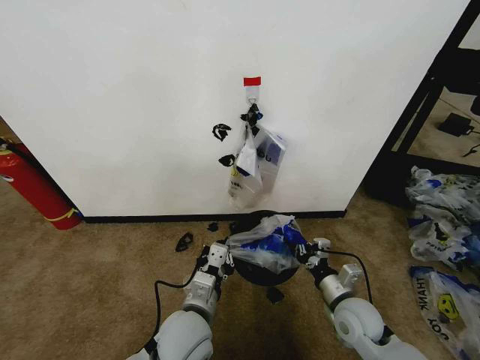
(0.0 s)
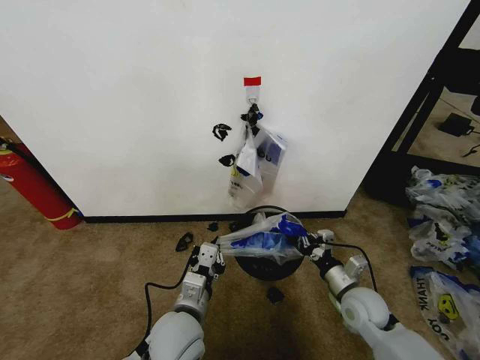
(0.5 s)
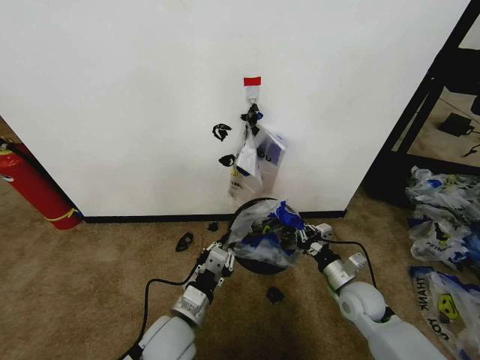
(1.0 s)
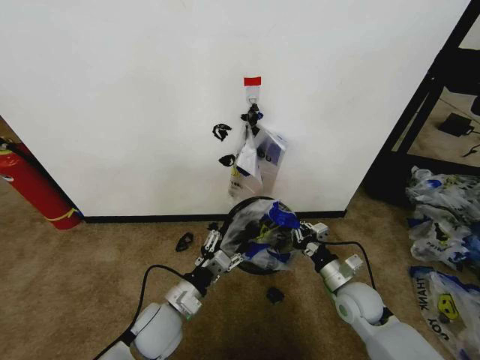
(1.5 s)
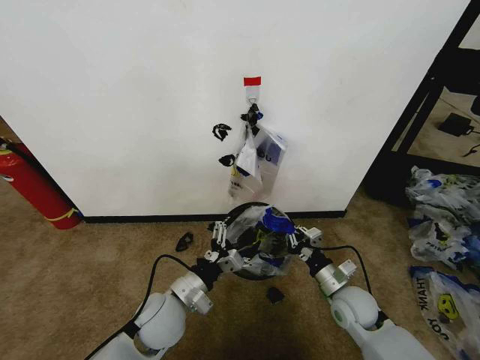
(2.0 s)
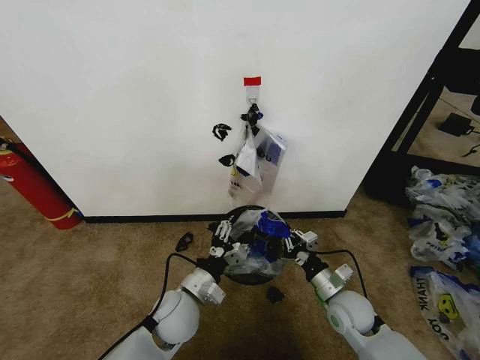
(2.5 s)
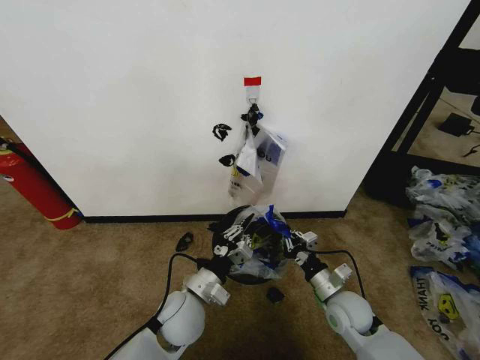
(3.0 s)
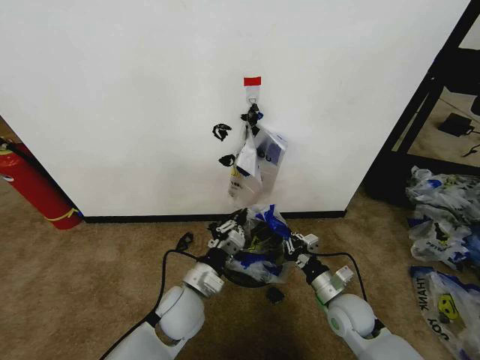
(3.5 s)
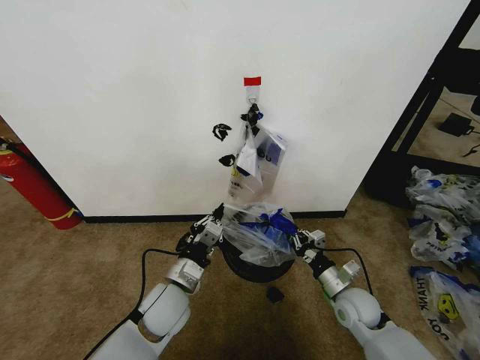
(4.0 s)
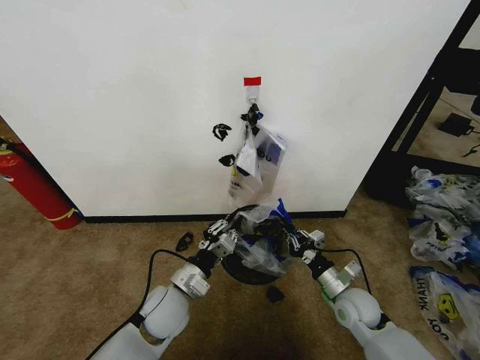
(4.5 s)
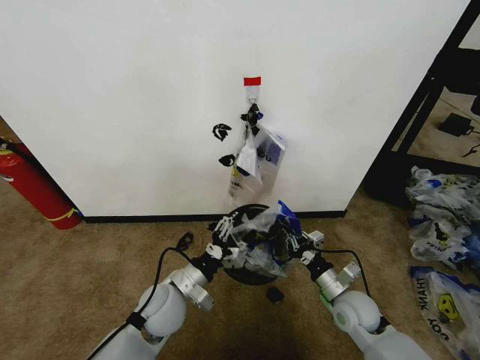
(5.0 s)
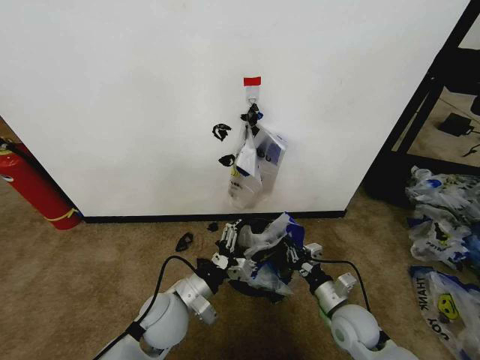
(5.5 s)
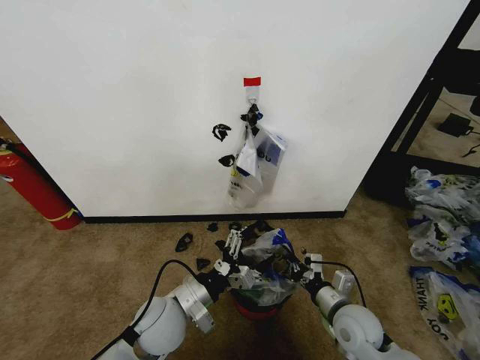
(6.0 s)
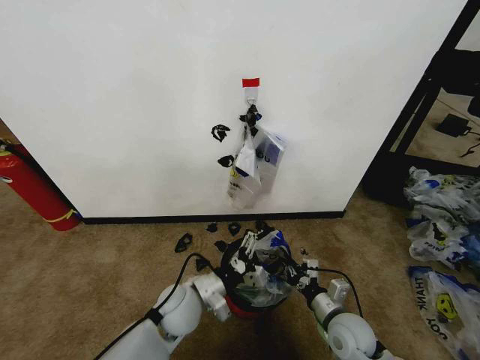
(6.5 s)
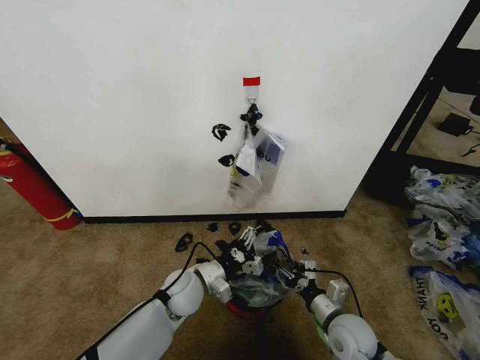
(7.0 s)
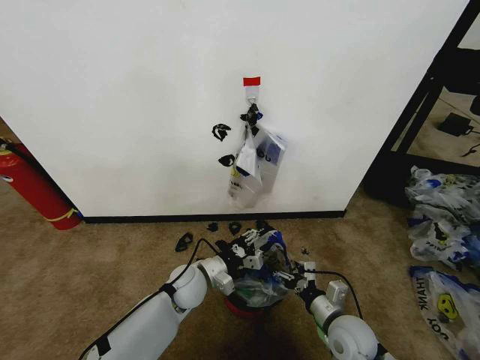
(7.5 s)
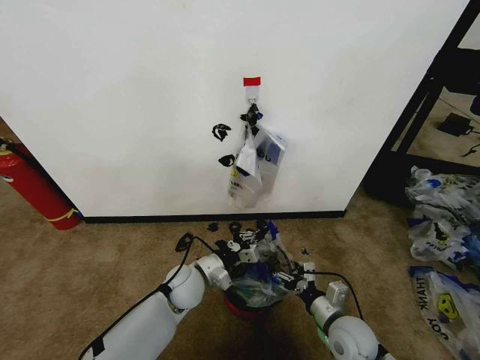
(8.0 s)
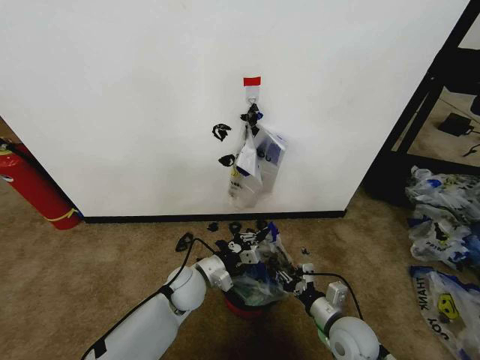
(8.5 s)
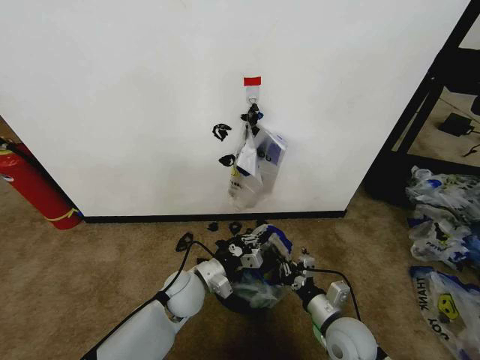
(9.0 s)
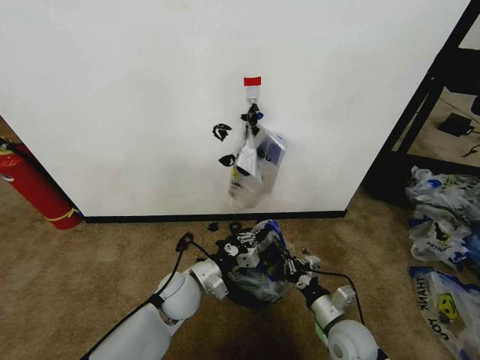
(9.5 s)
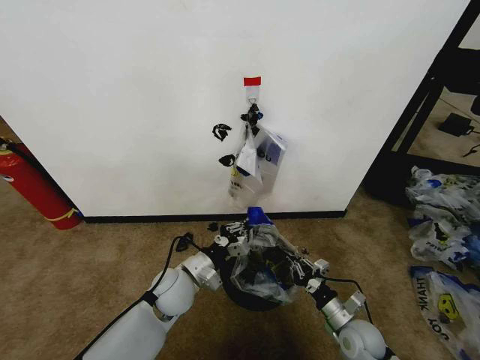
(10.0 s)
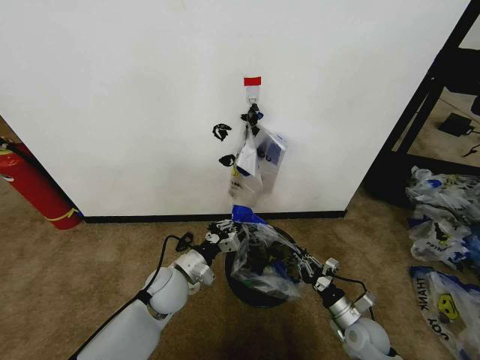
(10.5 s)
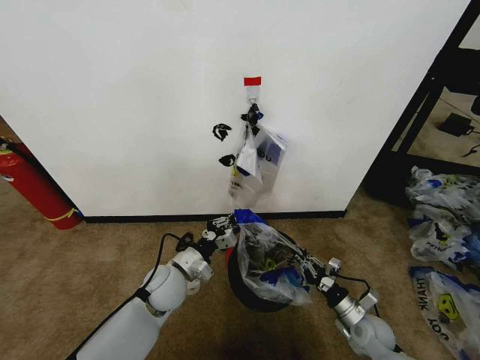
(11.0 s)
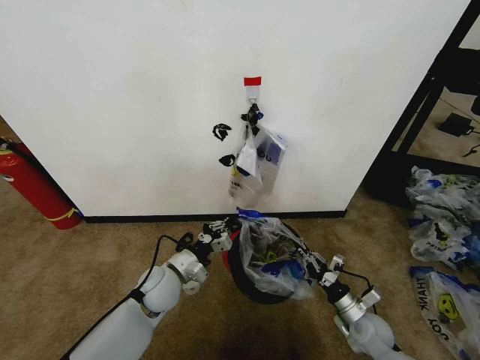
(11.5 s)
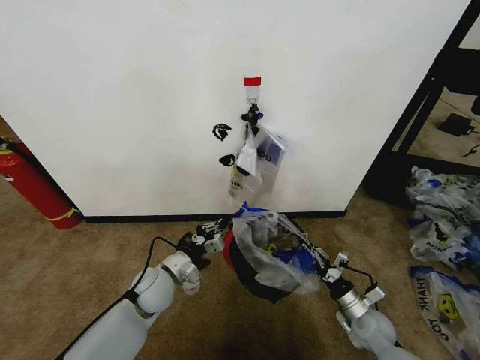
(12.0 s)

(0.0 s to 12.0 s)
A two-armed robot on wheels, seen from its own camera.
Task of the whole recording: Pick up the garbage bag from the wall and place it over the trash bin.
0.0 s - 2.0 s: The left gripper goes roughly 5 cm to the left, and opens its fingers.
2.0 s - 4.0 s: The left gripper closes its fingers.
4.0 s - 6.0 s: The left gripper opens up. The right gripper moves some 5 cm.
6.0 s - 8.0 s: The left gripper goes roughly 10 cm forward and downward, and closes up, while the right gripper opens.
8.0 s - 10.0 s: The right gripper travels downward by approximately 5 cm, and closes its fingers.
10.0 s - 12.0 s: The left gripper is displaced to the left by some 5 cm.

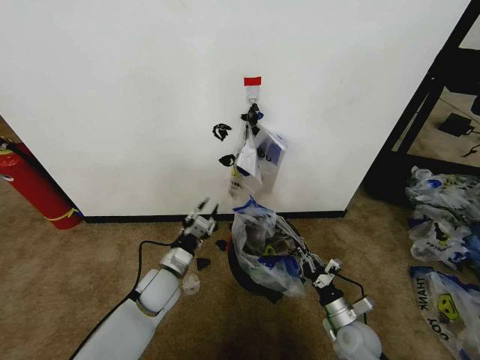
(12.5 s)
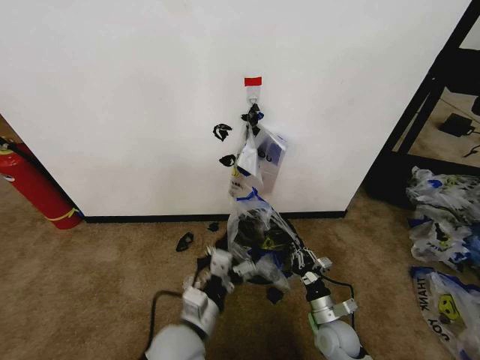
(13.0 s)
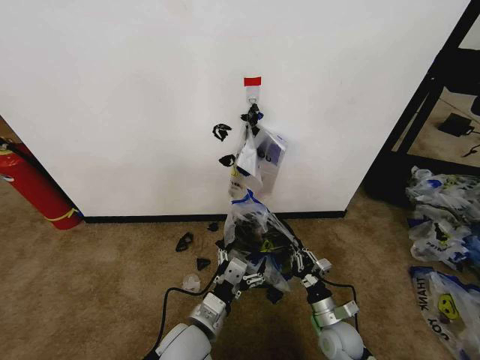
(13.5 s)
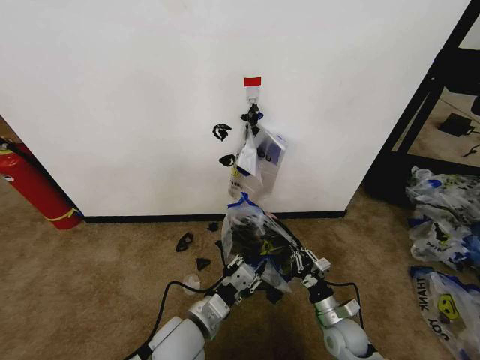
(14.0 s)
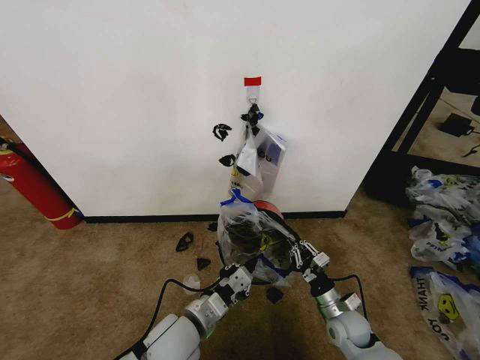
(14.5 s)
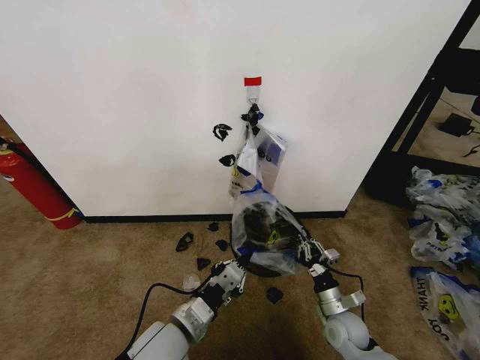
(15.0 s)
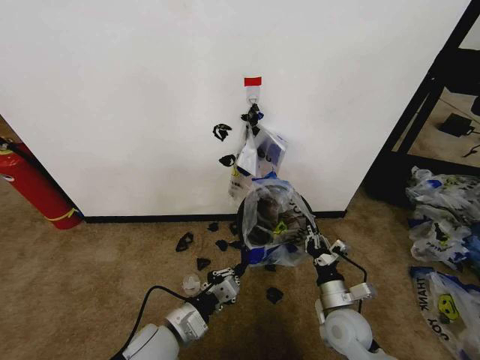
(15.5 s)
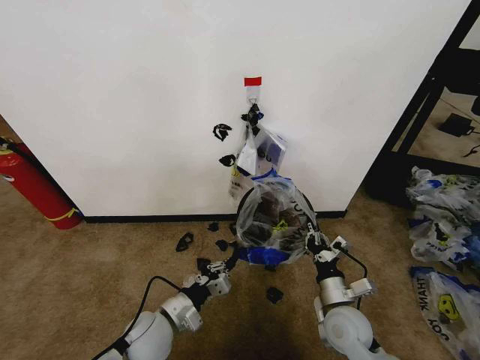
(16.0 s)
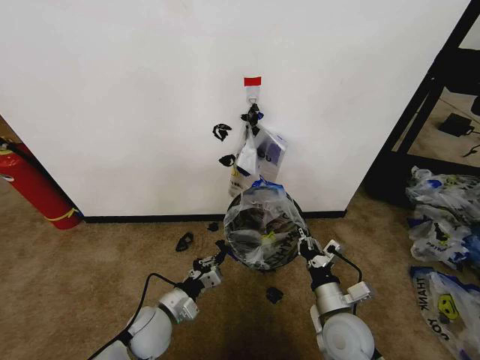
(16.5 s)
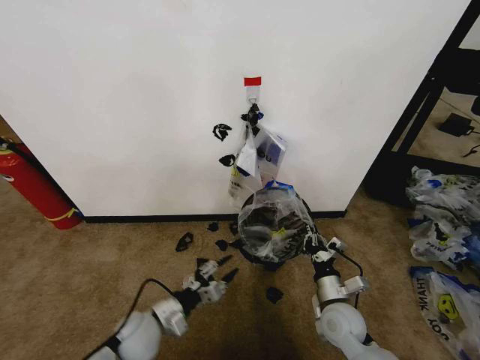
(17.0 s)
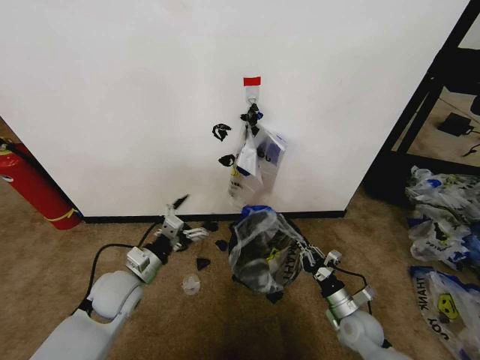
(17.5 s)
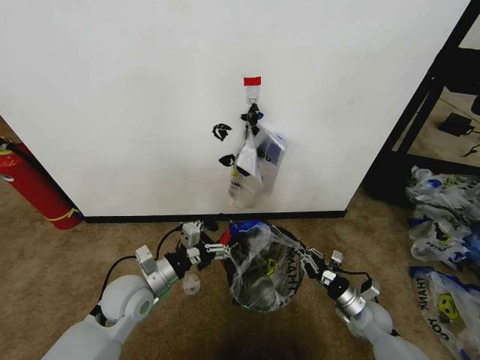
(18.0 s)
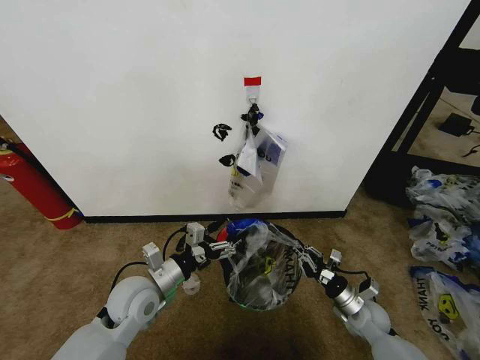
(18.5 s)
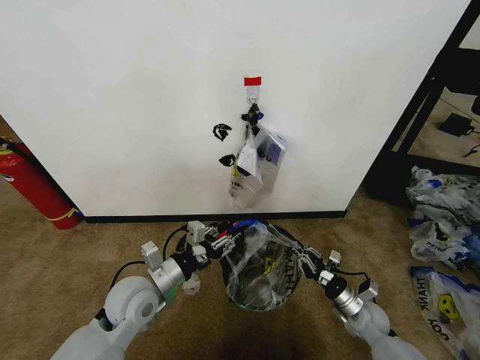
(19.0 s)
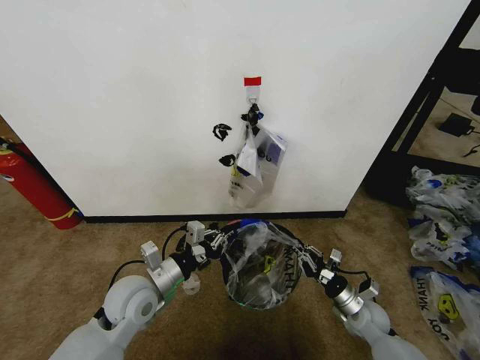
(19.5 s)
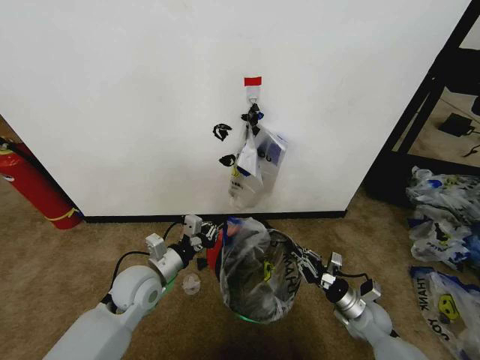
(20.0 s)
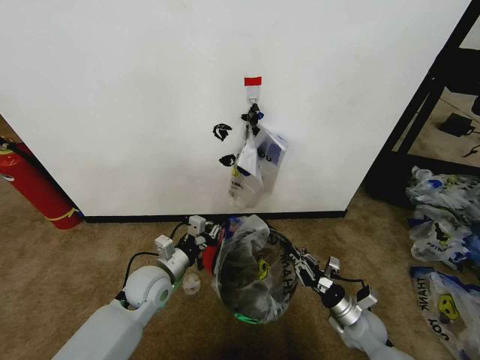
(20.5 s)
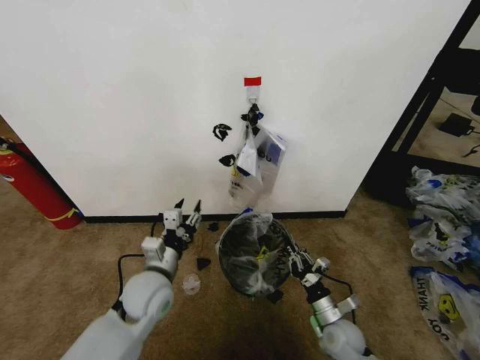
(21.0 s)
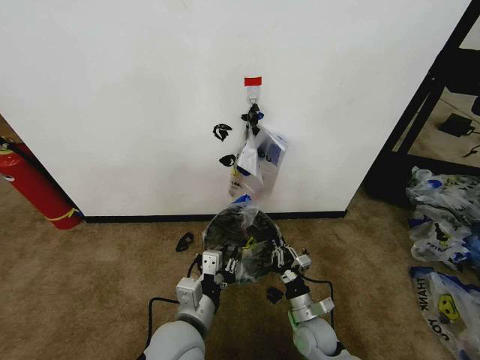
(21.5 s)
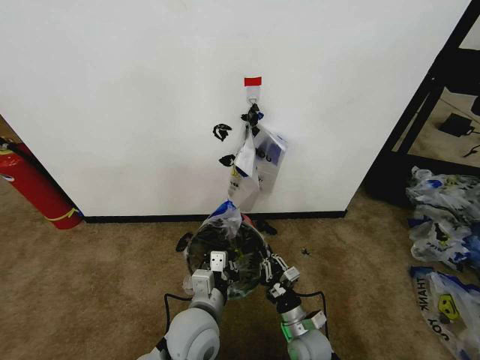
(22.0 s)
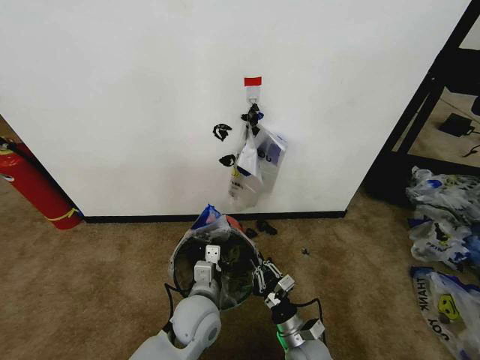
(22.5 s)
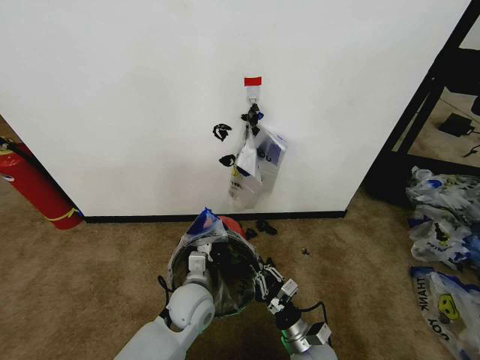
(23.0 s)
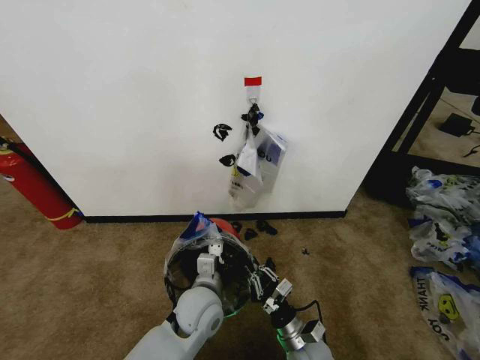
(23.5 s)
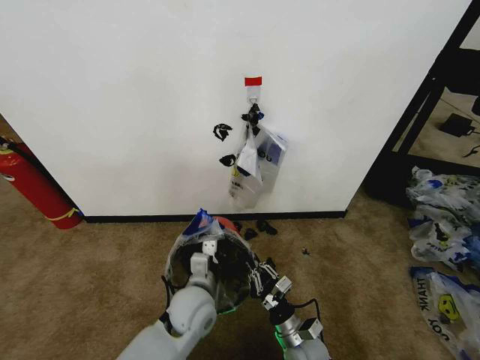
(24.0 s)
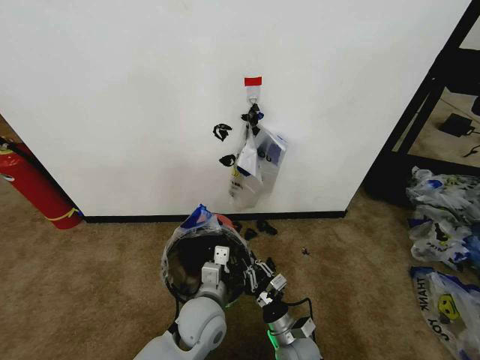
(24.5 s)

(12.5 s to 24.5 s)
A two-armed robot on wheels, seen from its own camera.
Task of the whole recording: Pick up the garbage bag from the wall and place it over the trash bin.
12.5 s - 14.5 s: The left gripper heads backward and to the right, covering about 15 cm, and closes up.
14.5 s - 16.5 s: The left gripper heads to the left and downward, covering about 10 cm, while the right gripper travels upward and to the left by some 10 cm.
16.5 s - 18.5 s: The left gripper travels upward by about 10 cm, and opens up, while the right gripper travels to the right, downward and forward by approximately 20 cm.
18.5 s - 20.5 s: The left gripper moves about 5 cm, and closes its fingers.
20.5 s - 22.5 s: The right gripper moves to the left, approximately 15 cm. Meanwhile the left gripper shifts about 15 cm to the right and backward, and opens, then closes again.
22.5 s - 24.5 s: The grippers move only a little.

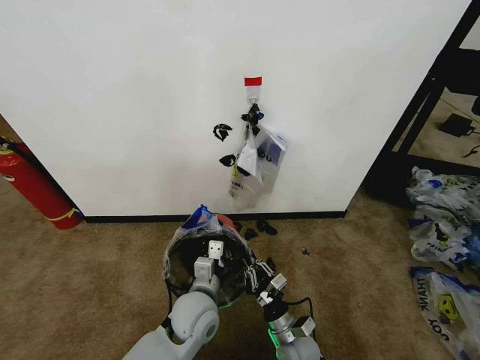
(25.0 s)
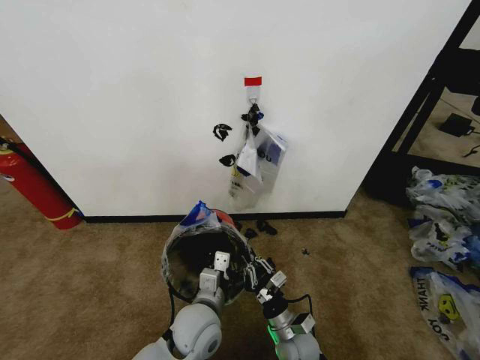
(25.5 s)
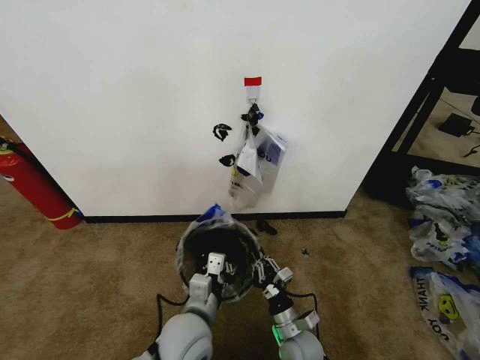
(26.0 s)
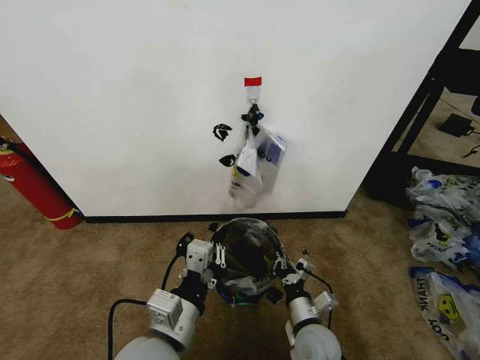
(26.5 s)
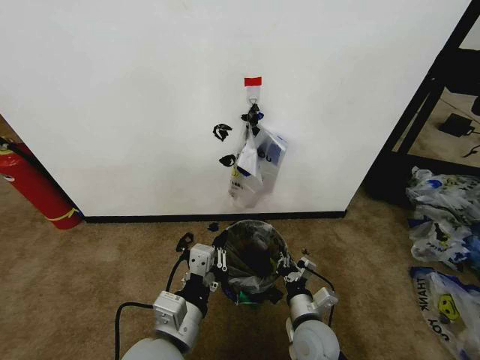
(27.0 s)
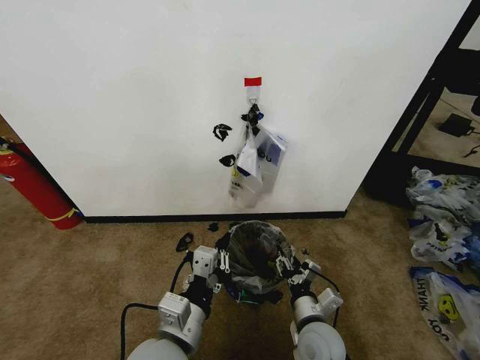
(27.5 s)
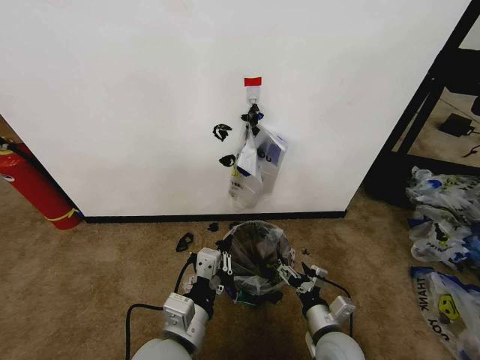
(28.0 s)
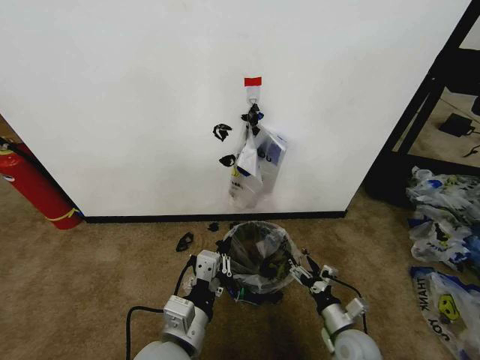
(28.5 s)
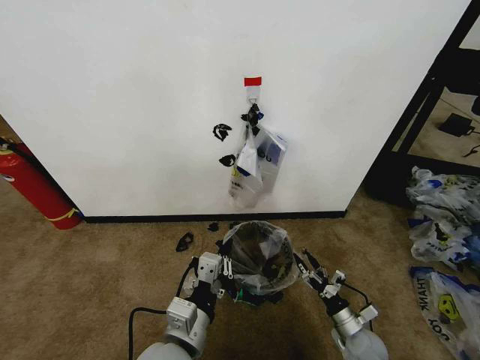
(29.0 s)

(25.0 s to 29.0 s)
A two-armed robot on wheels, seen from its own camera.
Task of the whole recording: Pick up the garbage bag from the wall and place it over the trash bin.
25.0 s - 27.0 s: The right gripper shifts some 10 cm upward. Meanwhile the left gripper shifts some 15 cm backward and upward.
27.0 s - 29.0 s: The right gripper heads to the right and downward, covering approximately 20 cm, and opens.
